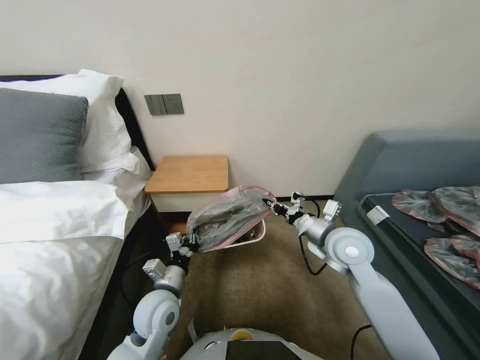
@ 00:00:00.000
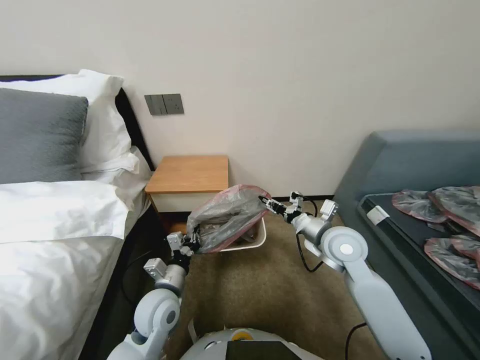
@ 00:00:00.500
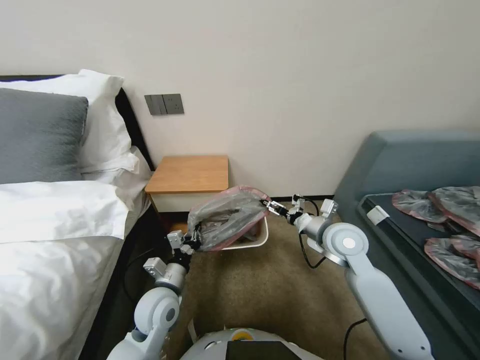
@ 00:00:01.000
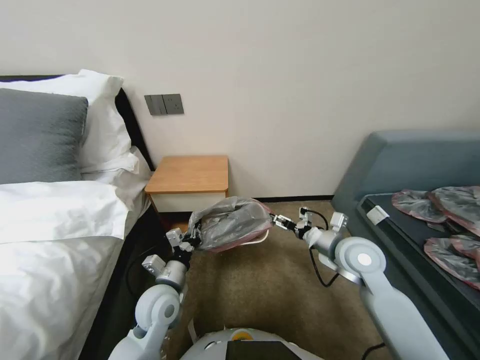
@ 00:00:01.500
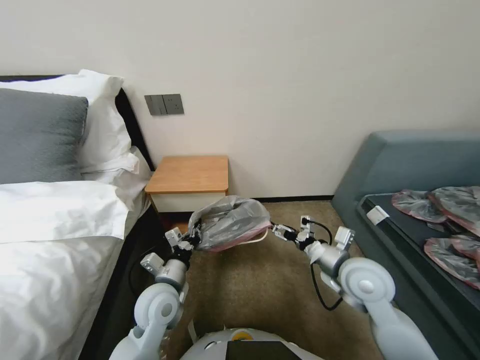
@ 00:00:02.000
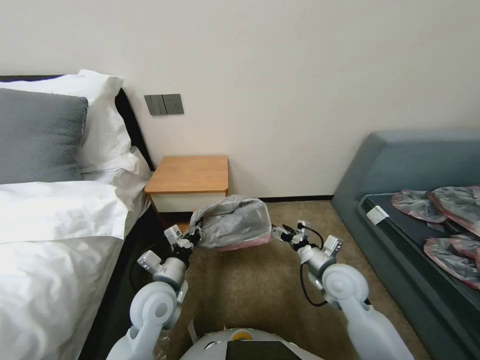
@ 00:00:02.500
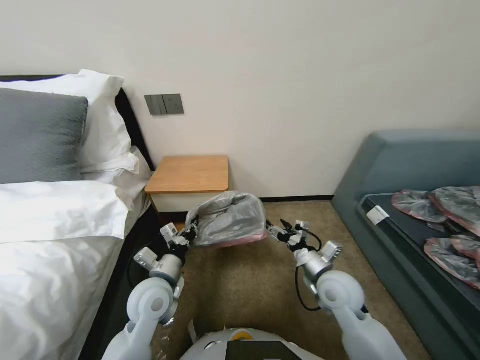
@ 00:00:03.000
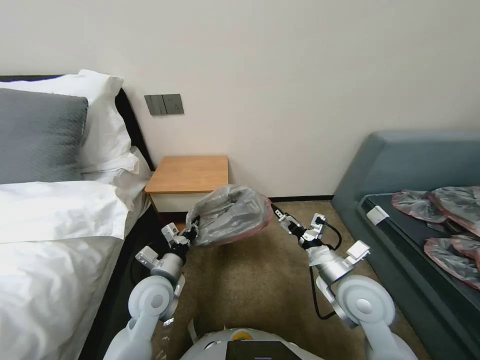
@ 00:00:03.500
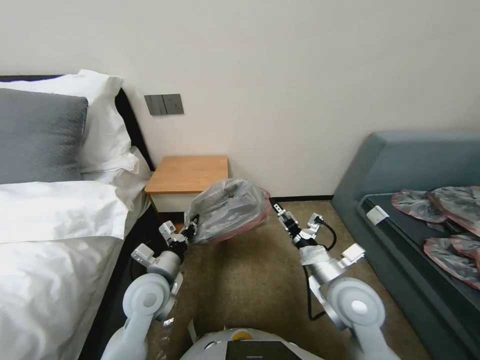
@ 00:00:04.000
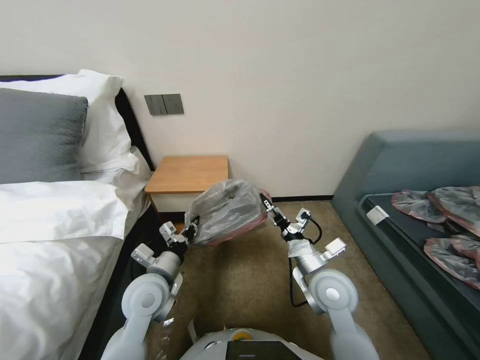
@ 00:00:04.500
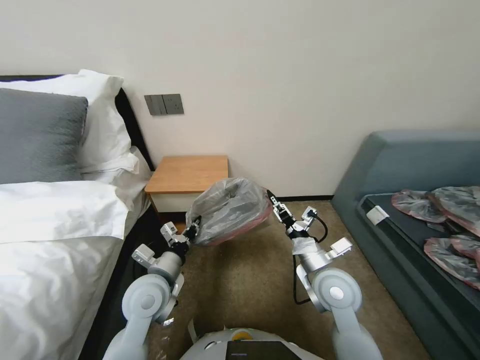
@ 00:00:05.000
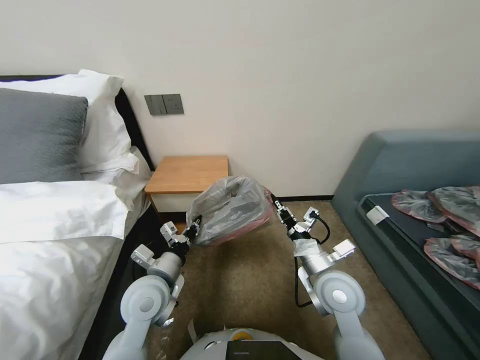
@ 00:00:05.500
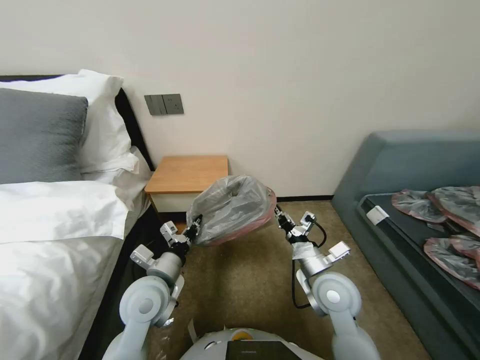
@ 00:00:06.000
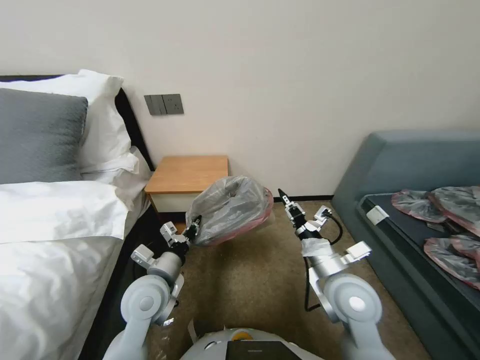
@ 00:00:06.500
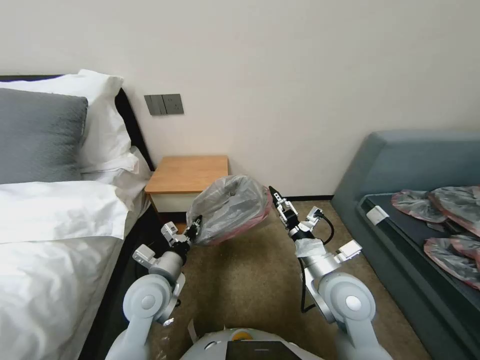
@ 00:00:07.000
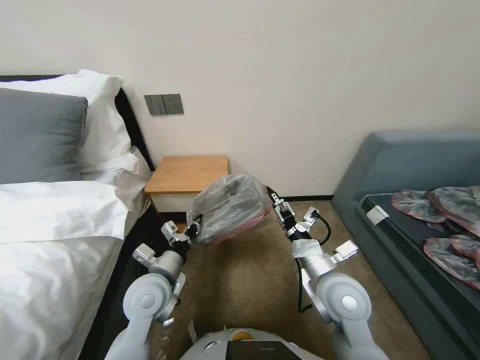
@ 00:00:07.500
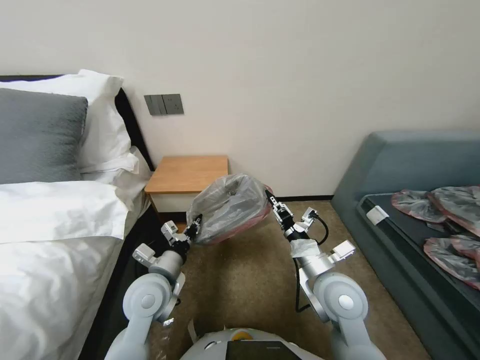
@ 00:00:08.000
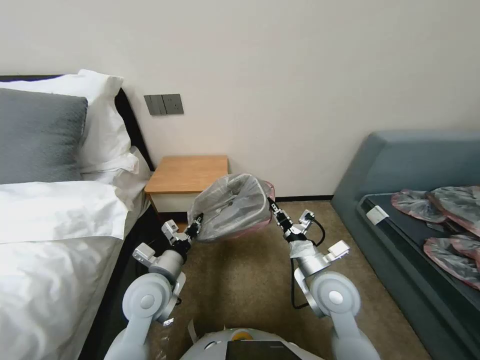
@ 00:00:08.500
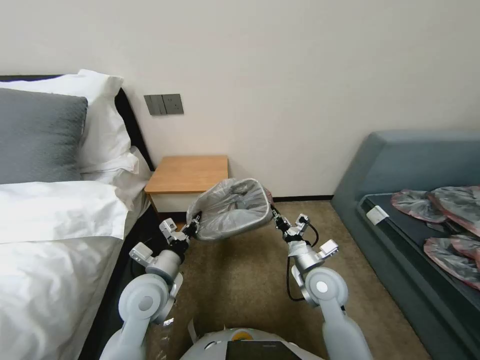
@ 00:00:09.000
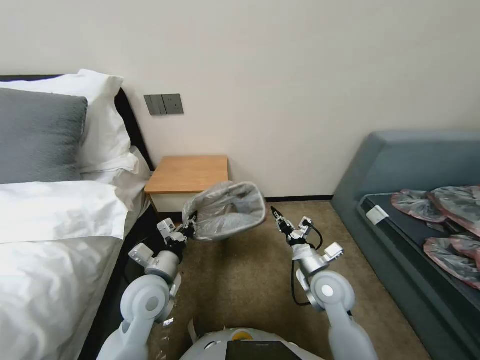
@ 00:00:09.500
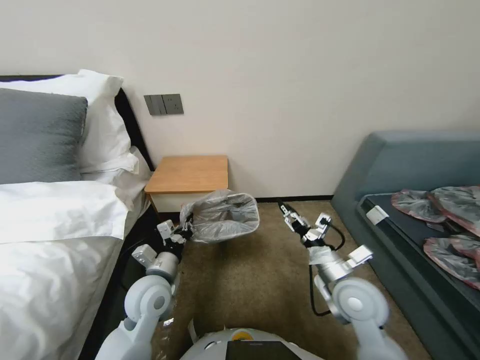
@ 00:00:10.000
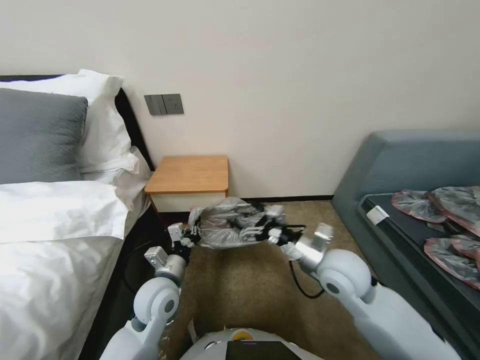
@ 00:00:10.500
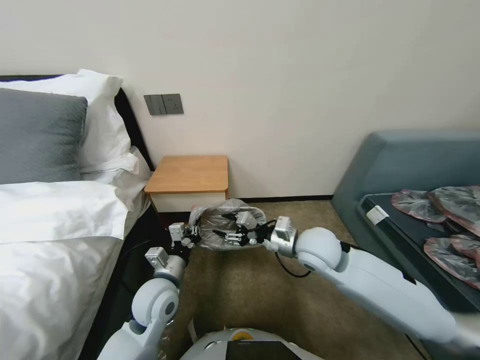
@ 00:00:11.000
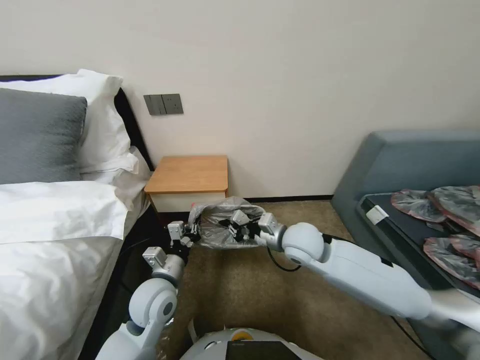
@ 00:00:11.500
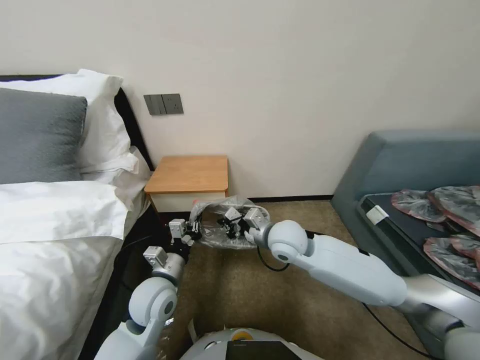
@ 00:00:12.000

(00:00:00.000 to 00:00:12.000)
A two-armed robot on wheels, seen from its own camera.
Task of the whole recording: Pick up the garbage bag from the table and place it over the trash can.
00:00:00.000 - 00:00:02.000: The right gripper heads backward, covering some 5 cm, and opens.
00:00:02.000 - 00:00:04.000: The right gripper goes downward and returns, approximately 10 cm each way.
00:00:04.000 - 00:00:06.000: The right gripper closes its fingers.
00:00:06.000 - 00:00:08.000: The right gripper opens up.
00:00:08.000 - 00:00:10.000: The right gripper moves some 5 cm, and closes, then reopens.
00:00:10.000 - 00:00:12.000: The right gripper travels to the left, forward and upward by some 20 cm, and closes.

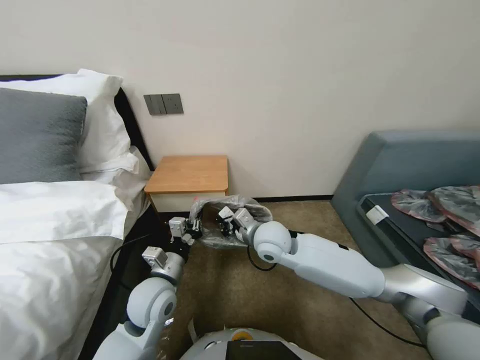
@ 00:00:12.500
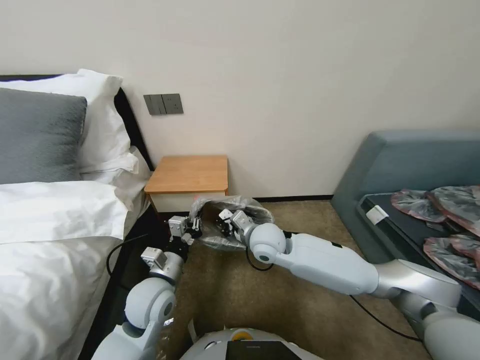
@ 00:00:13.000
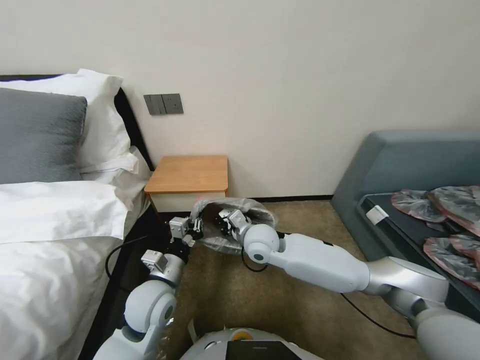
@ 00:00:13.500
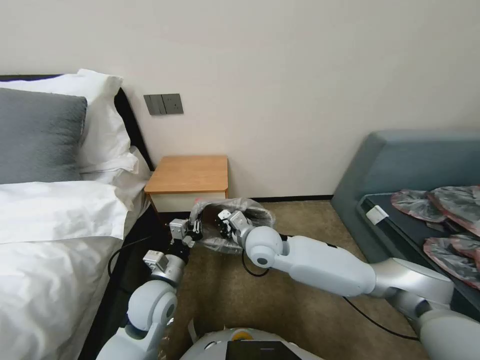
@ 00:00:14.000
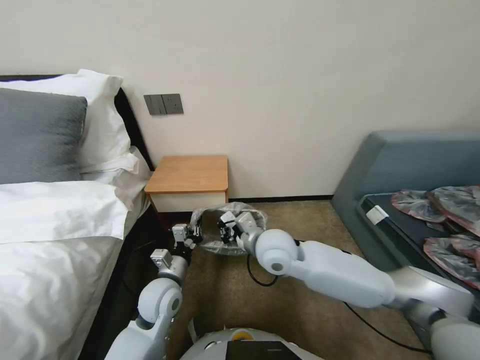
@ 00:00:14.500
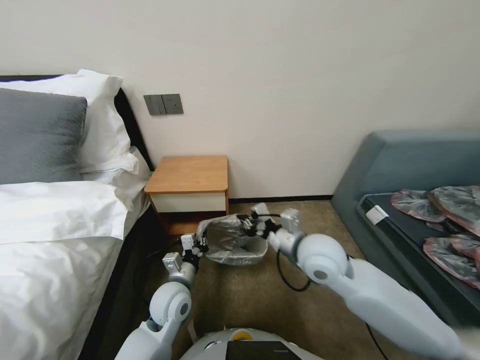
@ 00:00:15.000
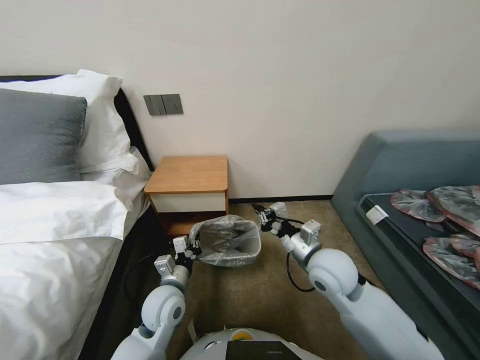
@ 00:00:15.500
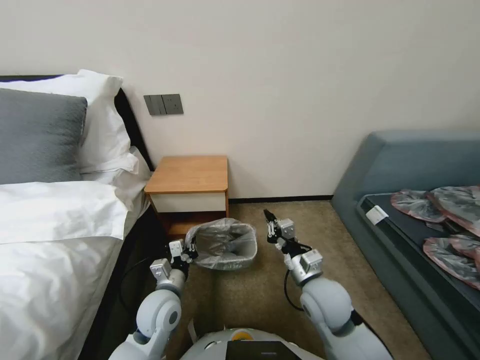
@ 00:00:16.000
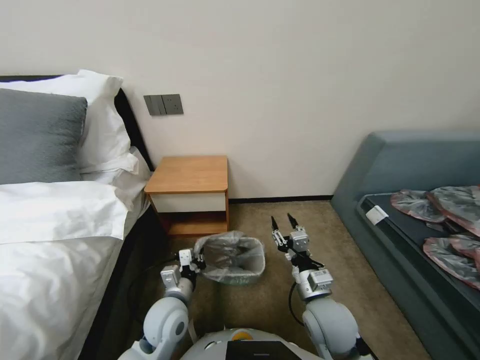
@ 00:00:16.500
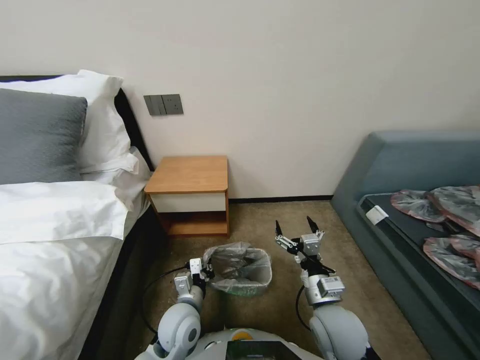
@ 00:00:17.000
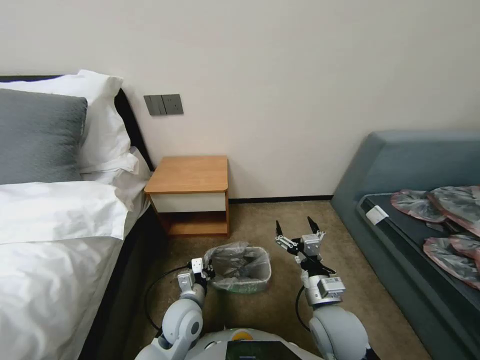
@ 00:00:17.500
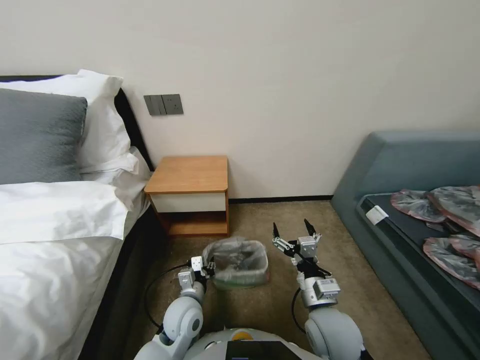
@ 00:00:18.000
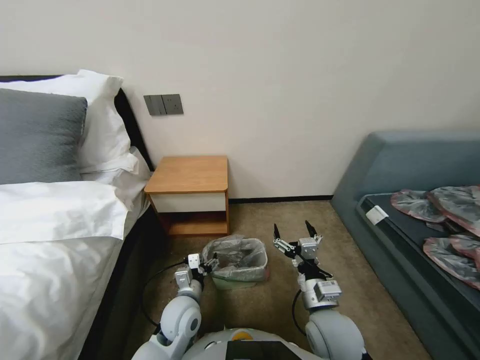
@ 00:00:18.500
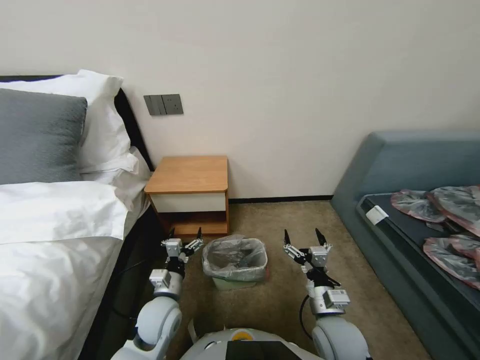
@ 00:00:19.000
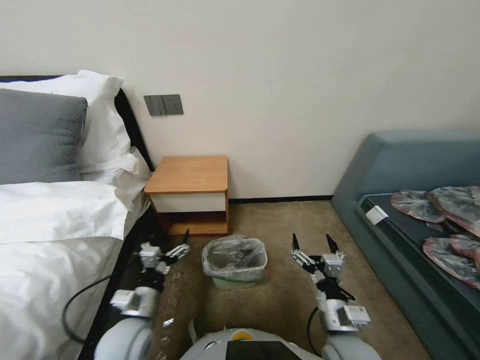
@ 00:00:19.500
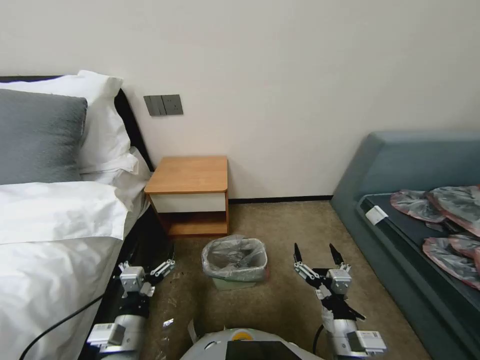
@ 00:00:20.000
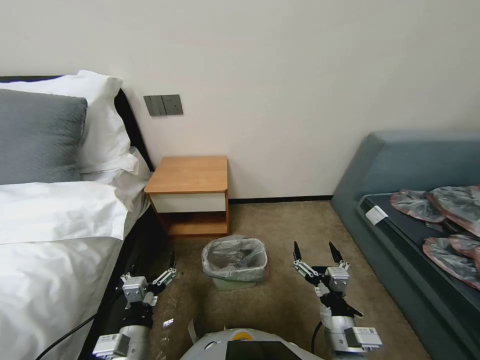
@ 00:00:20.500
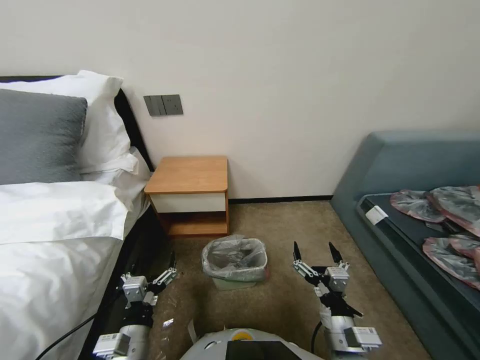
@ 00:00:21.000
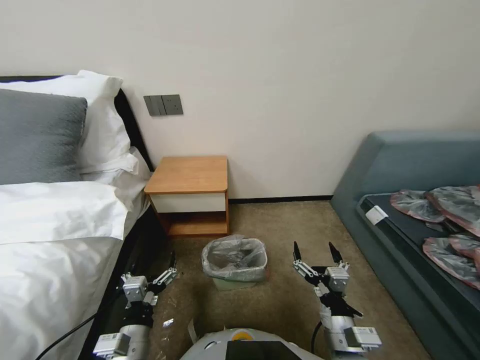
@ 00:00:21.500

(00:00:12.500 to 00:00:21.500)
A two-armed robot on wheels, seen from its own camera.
Task of the whole recording: Pick up the garbage bag from the table and place it over the trash can.
00:00:12.500 - 00:00:14.500: The grippers make only small movements.
00:00:14.500 - 00:00:17.000: The left gripper moves some 10 cm. Meanwhile the right gripper goes about 20 cm backward, to the right and downward, and opens.
00:00:17.000 - 00:00:19.500: The left gripper travels to the left by roughly 10 cm, and opens up.
00:00:19.500 - 00:00:21.500: The left gripper shifts some 10 cm backward.
